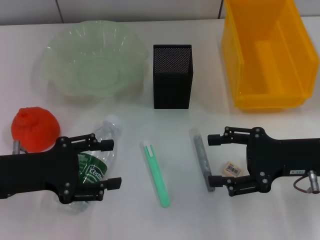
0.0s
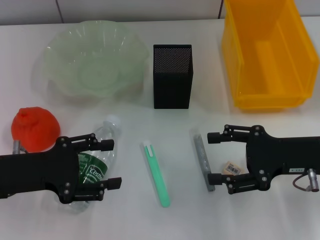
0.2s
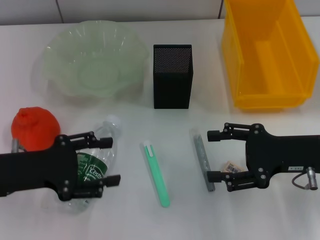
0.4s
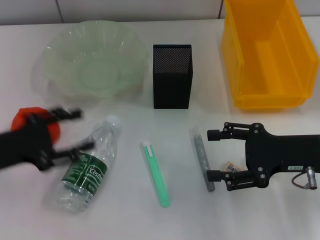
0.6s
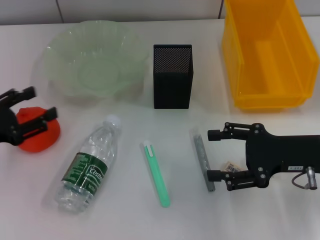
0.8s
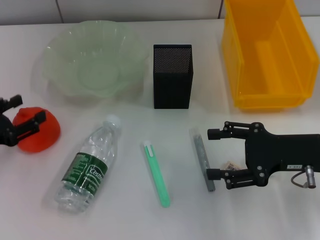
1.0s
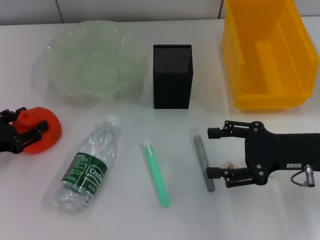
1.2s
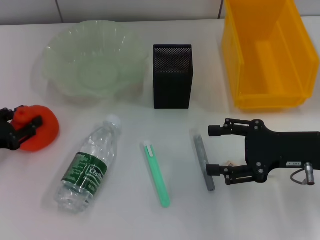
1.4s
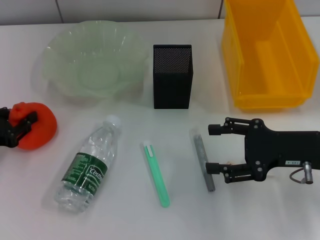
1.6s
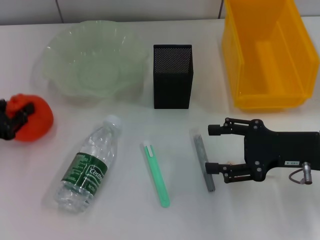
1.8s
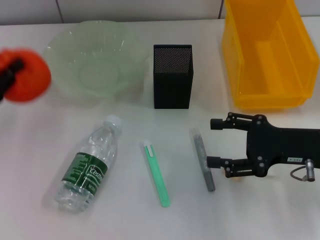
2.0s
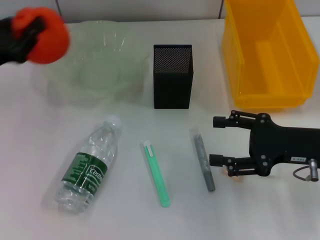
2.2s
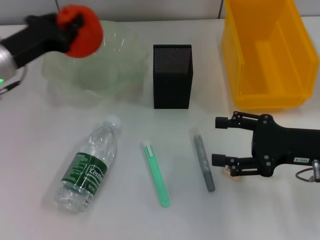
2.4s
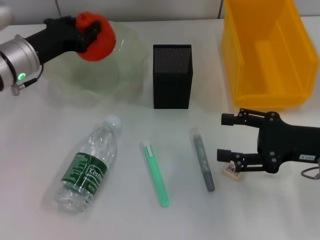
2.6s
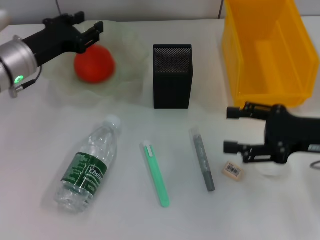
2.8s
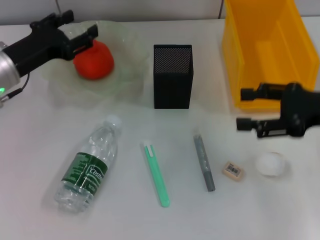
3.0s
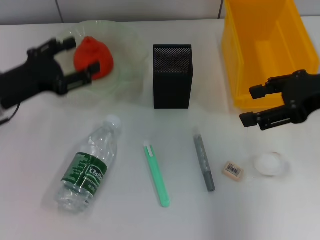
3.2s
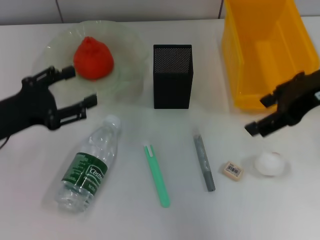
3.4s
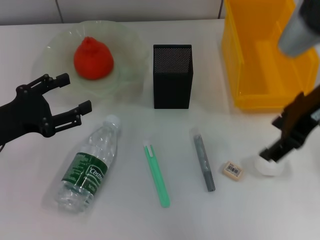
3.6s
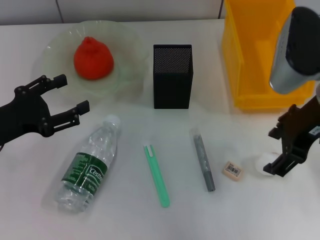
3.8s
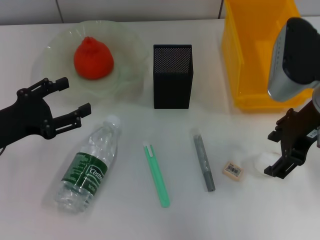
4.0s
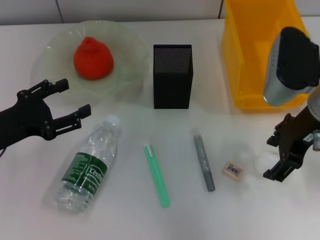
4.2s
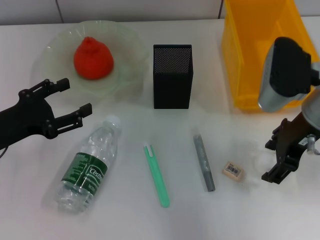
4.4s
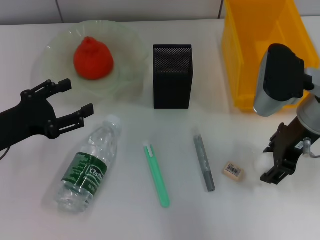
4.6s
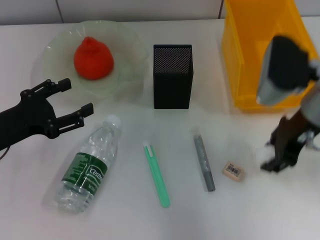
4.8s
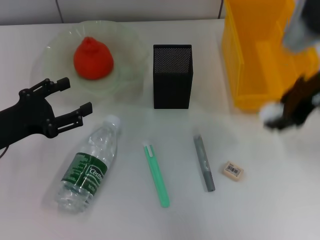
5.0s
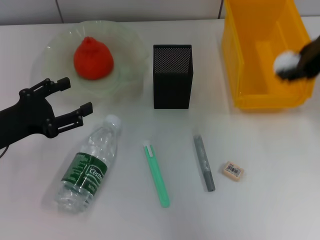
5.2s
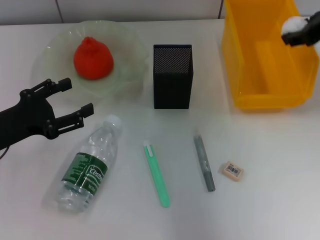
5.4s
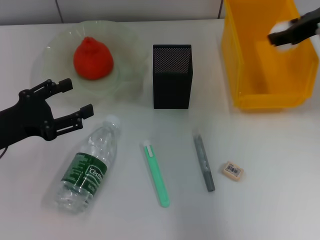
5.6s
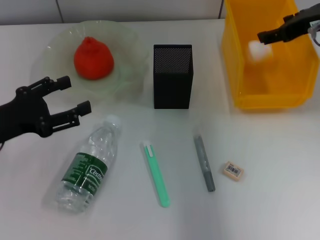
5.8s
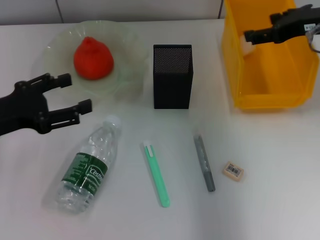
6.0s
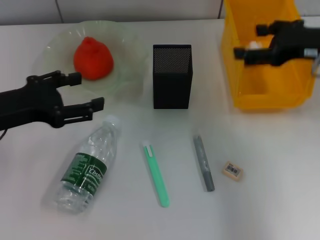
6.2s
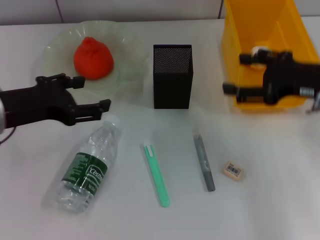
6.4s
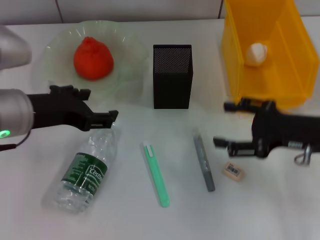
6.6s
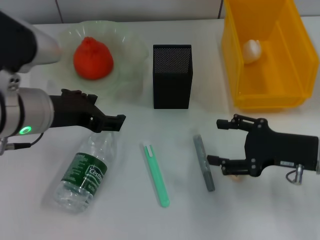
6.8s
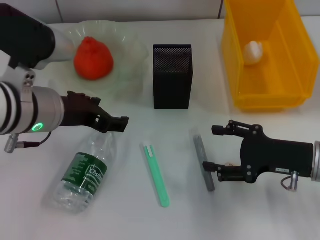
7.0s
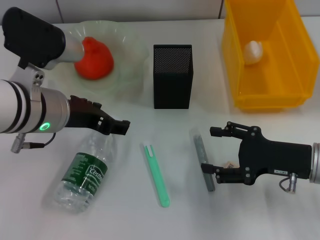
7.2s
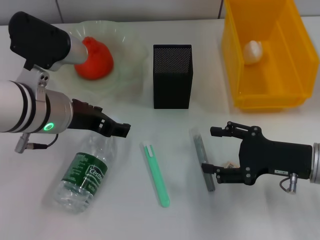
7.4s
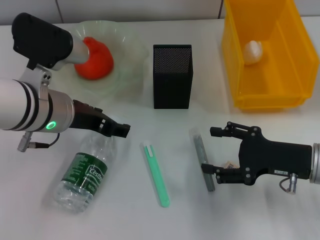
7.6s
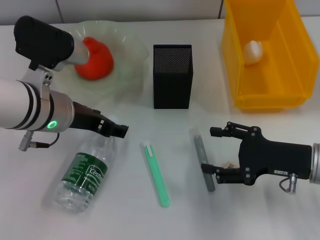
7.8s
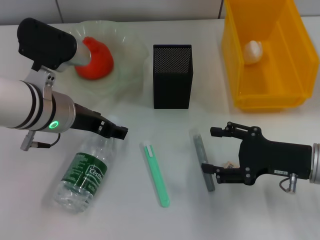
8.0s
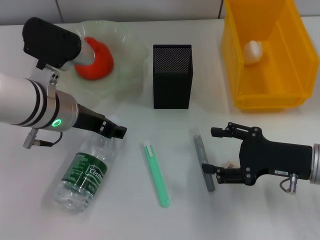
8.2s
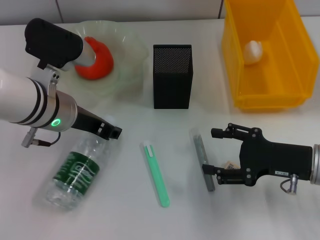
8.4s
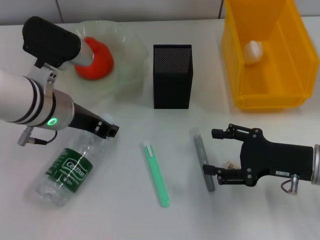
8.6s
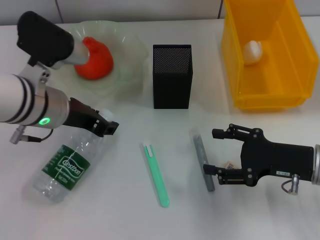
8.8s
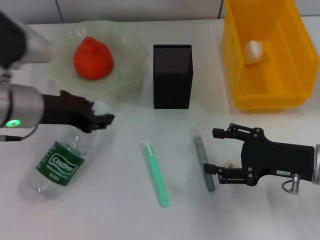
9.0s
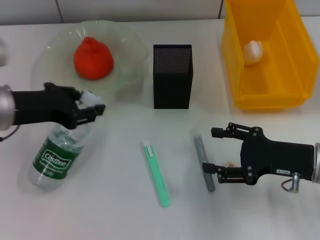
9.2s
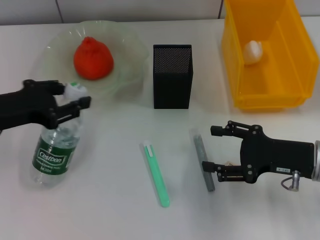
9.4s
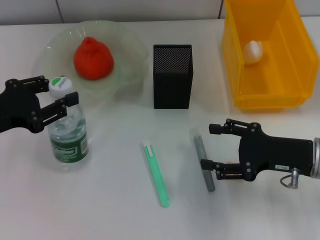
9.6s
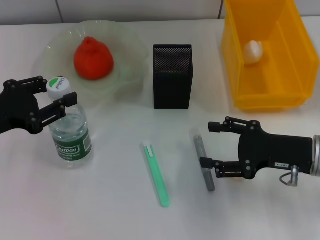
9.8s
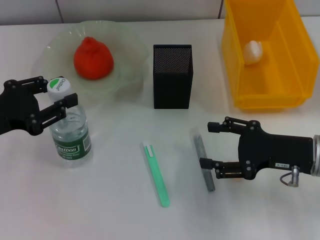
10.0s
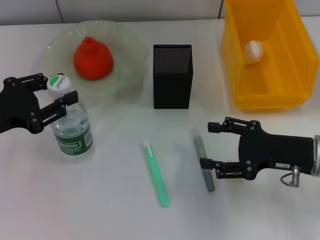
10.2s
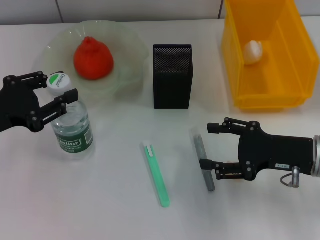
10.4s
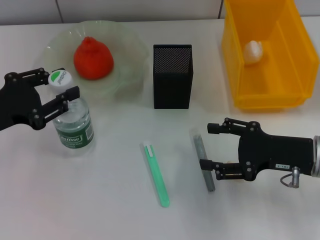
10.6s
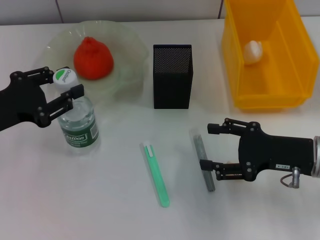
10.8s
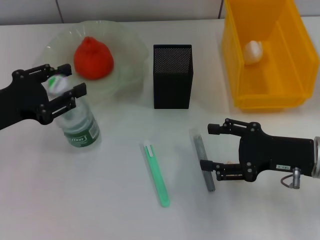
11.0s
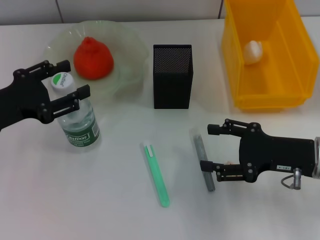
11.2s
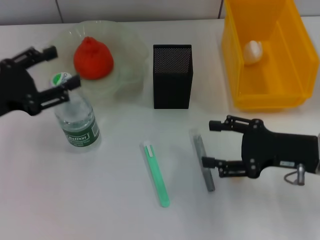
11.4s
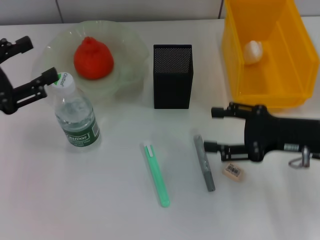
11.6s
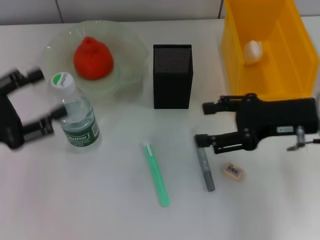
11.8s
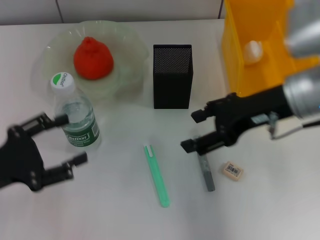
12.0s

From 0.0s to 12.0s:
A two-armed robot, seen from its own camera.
Step, from 0.0s to 1.4s: Grab the orange with the left hand.
Step, from 1.6s to 2.6s: Place the orange into the fruit bowl with the left hand.
Step, from 2.8s to 4.4s: Grab the paper ball with the right hand.
Step, from 4.6s to 5.8s: Place the paper ball into the trash can with the right hand.
Step, from 6.0s to 8.8s: Grab the water bottle with the left hand.
Step, from 9.0s to 11.0s: Place the water bottle on the table with the left hand.
From 0.0s to 1.6s: The left gripper moves to the left, some 10 cm, and closes.
From 1.6s to 3.0s: The right gripper is displaced upward by approximately 10 cm; the left gripper shifts about 15 cm forward, to the right and upward, and closes, then reopens.
From 3.0s to 4.4s: The left gripper goes some 10 cm backward, and opens up. The right gripper shifts some 10 cm to the left.
From 4.4s to 6.0s: The right gripper travels forward, to the right and upward by about 10 cm, and closes, then reopens.
From 6.0s to 7.6s: The right gripper is displaced downward and backward by about 20 cm. Meanwhile the left gripper travels to the right by about 15 cm.
From 7.6s to 9.0s: The left gripper closes.
From 9.0s to 10.4s: The left gripper shifts about 10 cm to the left and backward.
From 10.4s to 12.0s: The left gripper goes some 5 cm backward, and opens up. The right gripper goes roughly 15 cm upward, to the left and forward.

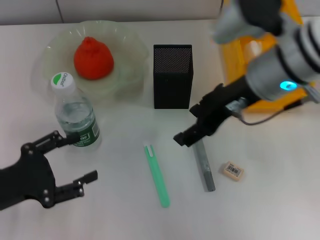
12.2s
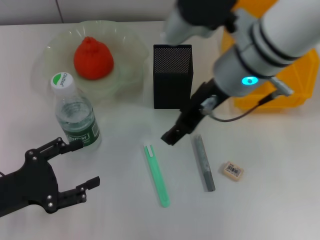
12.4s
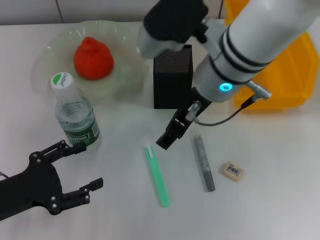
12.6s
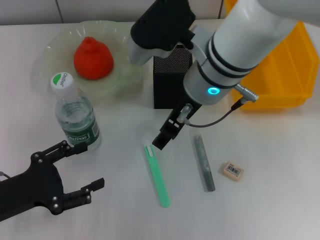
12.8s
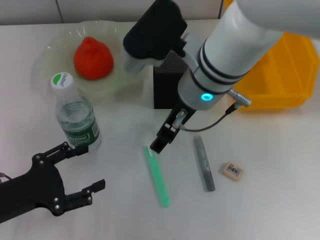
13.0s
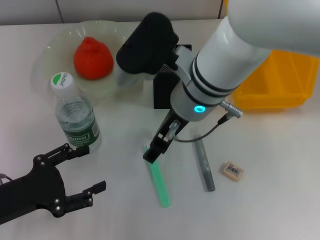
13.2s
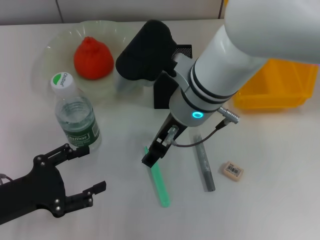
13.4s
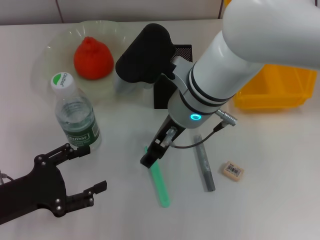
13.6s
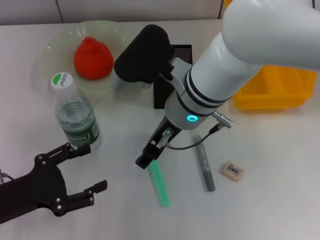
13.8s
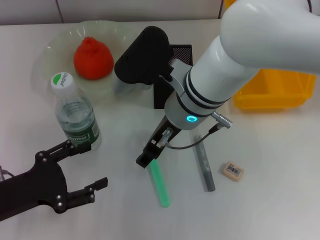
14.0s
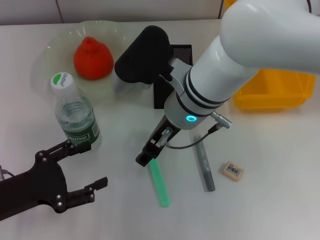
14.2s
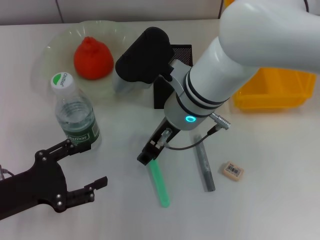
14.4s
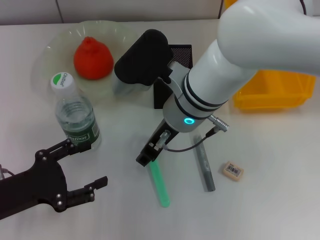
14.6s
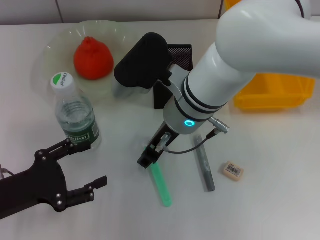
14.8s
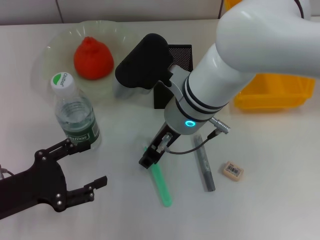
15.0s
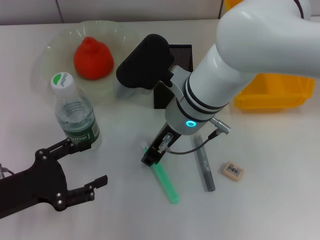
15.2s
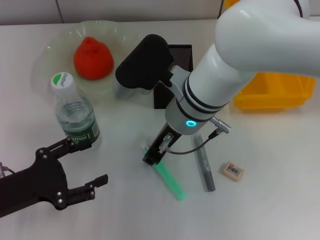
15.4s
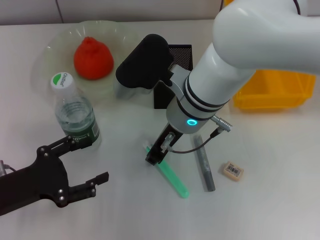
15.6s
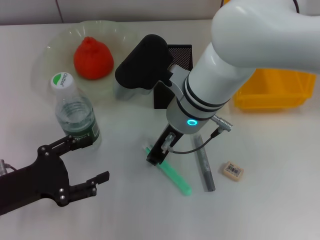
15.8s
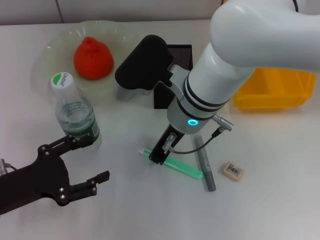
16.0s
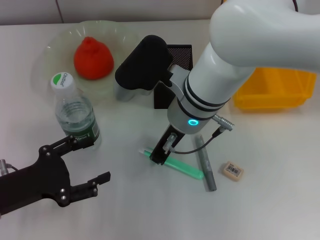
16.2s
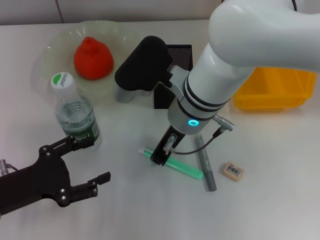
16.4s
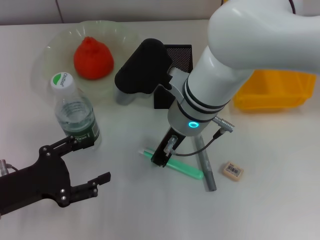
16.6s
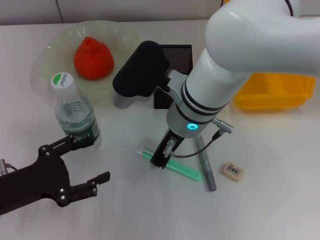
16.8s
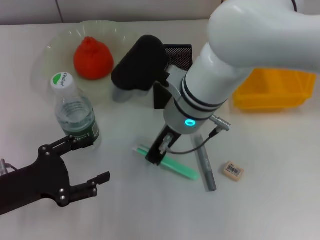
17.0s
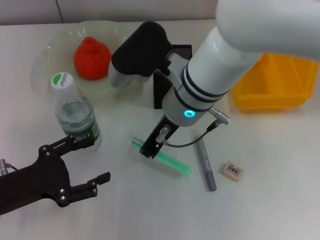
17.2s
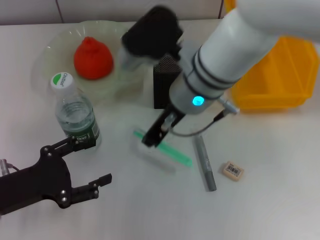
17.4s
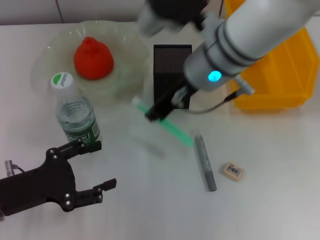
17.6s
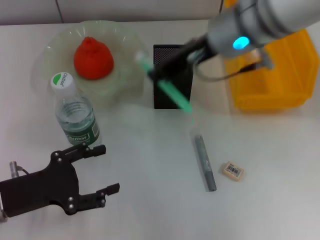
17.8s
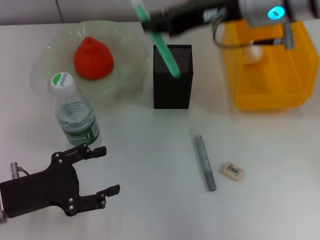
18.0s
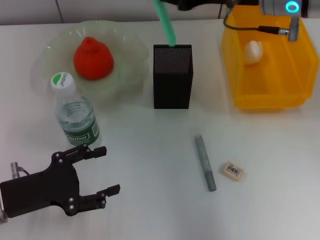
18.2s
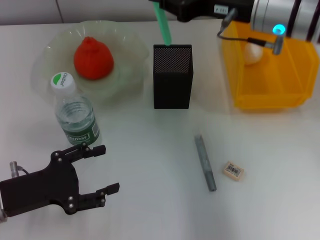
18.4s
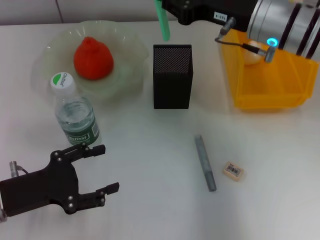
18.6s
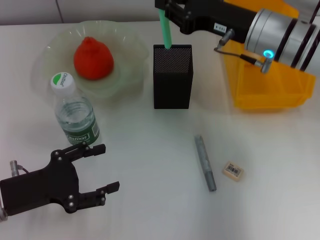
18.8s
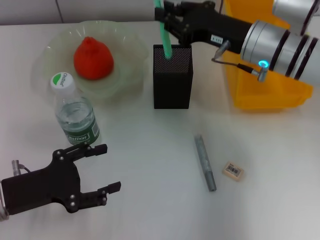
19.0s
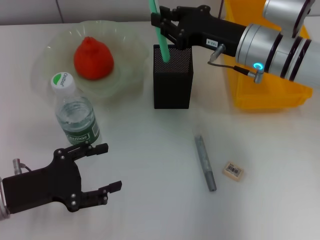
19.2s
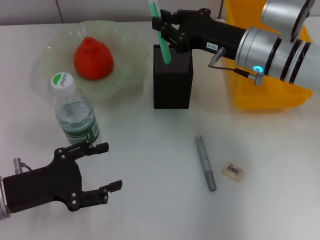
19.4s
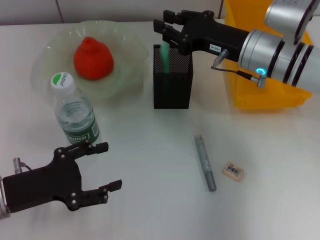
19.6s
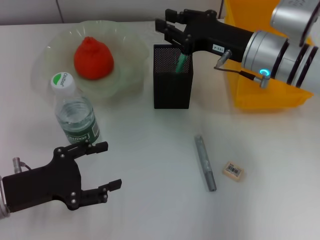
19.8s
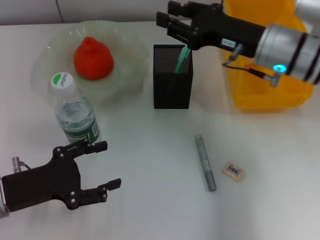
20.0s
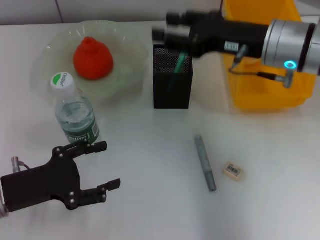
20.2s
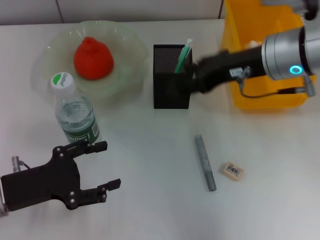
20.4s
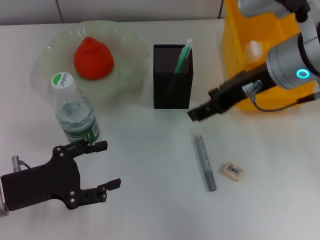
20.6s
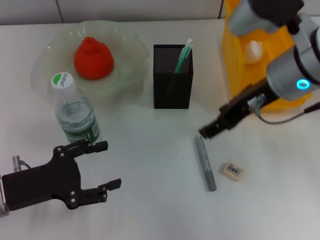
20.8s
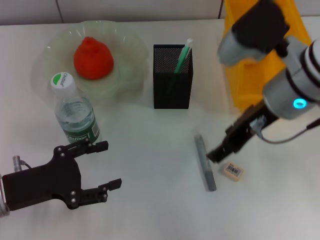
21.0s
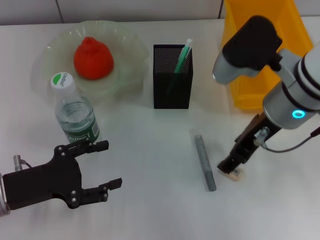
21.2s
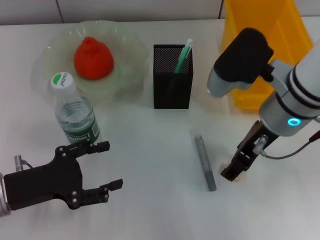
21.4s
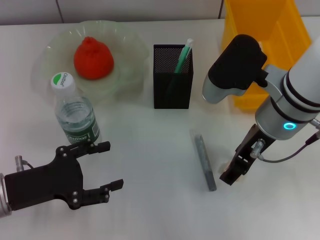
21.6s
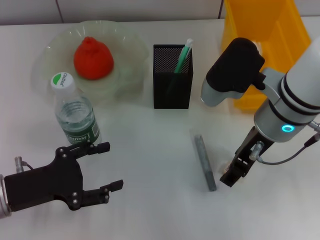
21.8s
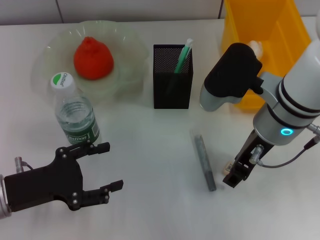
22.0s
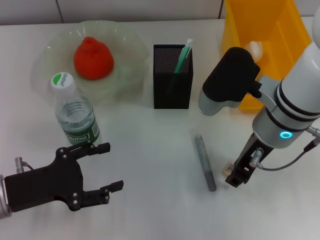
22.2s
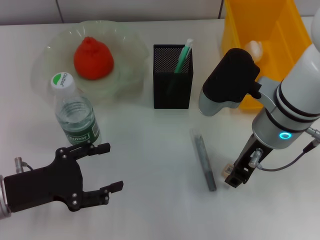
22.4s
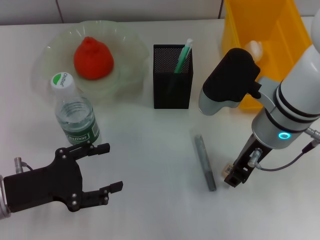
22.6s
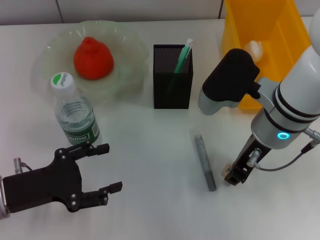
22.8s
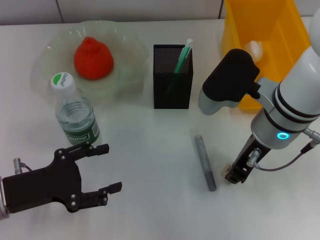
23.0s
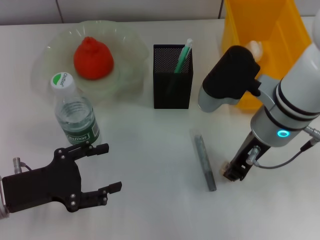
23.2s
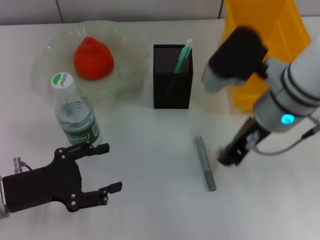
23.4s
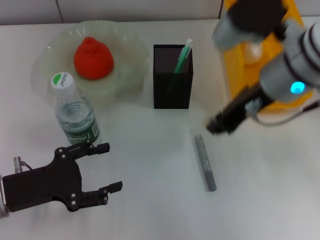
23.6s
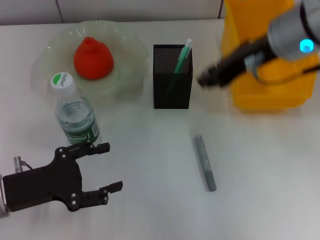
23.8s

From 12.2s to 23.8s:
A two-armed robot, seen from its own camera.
Step, from 12.2s to 16.8s: Grab the blue utility knife with the right hand.
Step, from 17.0s to 19.6s: Place the blue utility knife into the pen holder with the right hand.
Step, from 20.0s to 23.0s: Grab the eraser with the right hand.
From 12.2s to 13.6s: The right gripper heads to the left and downward, covering approximately 10 cm.
From 13.6s to 15.0s: The right gripper closes its fingers.
From 15.0s to 16.6s: The right gripper closes its fingers.
From 16.6s to 18.0s: The right gripper shifts approximately 15 cm upward and to the right.
From 18.0s to 19.4s: The right gripper goes roughly 15 cm downward.
From 19.4s to 21.0s: The right gripper moves backward and upward, about 10 cm, and opens its fingers.
From 21.0s to 22.4s: The right gripper closes its fingers.
From 22.4s to 23.8s: The right gripper is displaced upward by about 10 cm, and closes its fingers.
